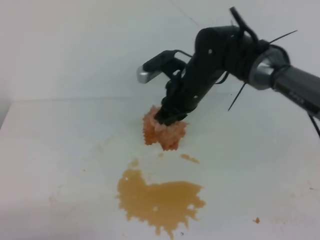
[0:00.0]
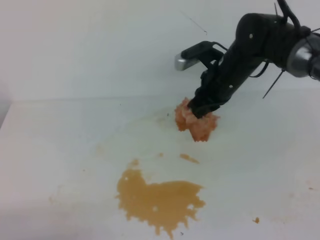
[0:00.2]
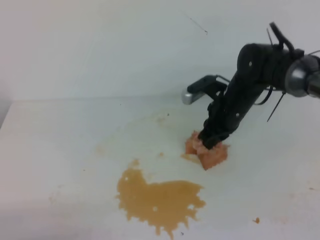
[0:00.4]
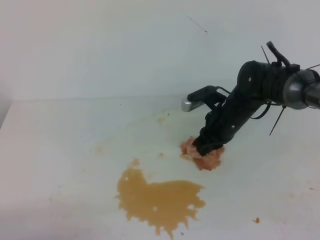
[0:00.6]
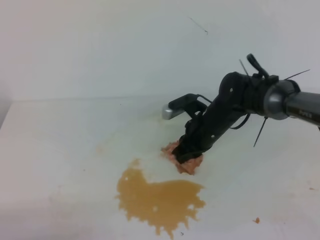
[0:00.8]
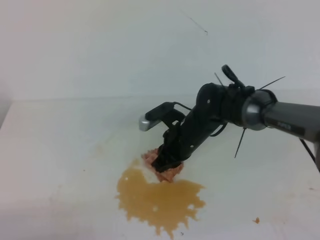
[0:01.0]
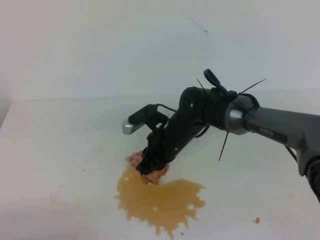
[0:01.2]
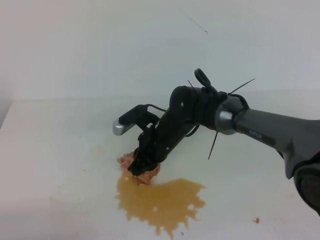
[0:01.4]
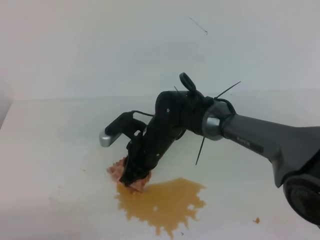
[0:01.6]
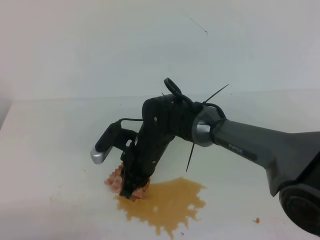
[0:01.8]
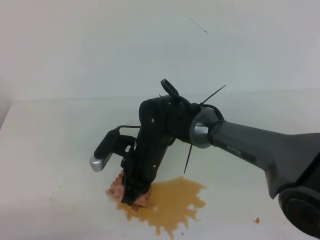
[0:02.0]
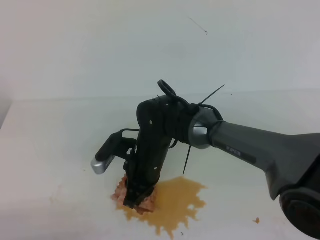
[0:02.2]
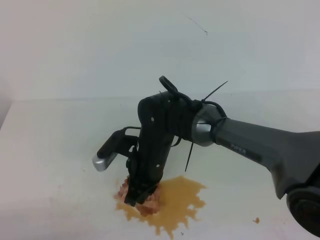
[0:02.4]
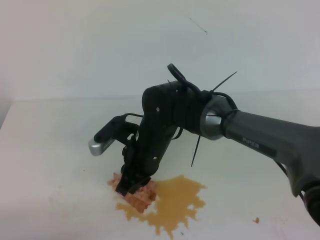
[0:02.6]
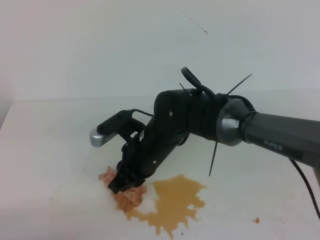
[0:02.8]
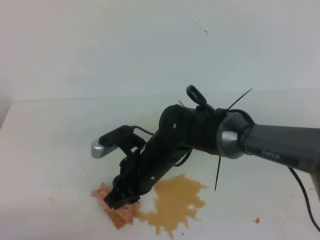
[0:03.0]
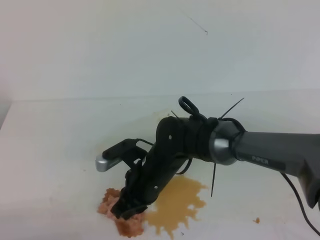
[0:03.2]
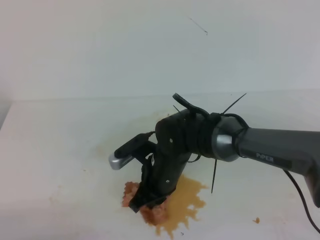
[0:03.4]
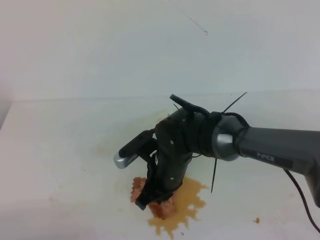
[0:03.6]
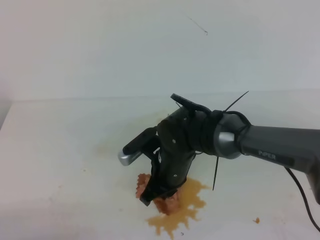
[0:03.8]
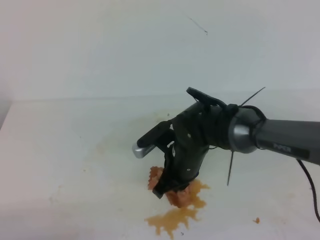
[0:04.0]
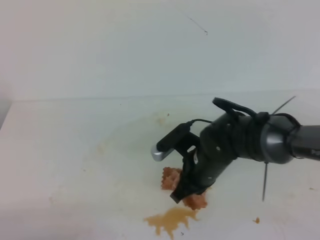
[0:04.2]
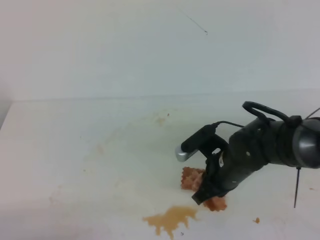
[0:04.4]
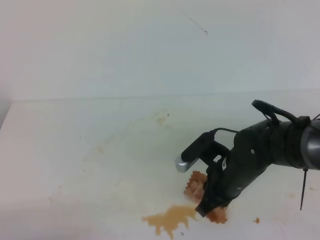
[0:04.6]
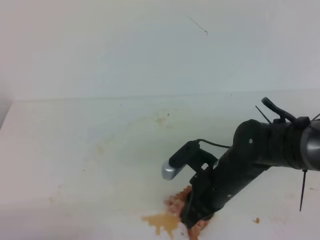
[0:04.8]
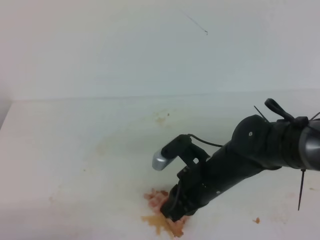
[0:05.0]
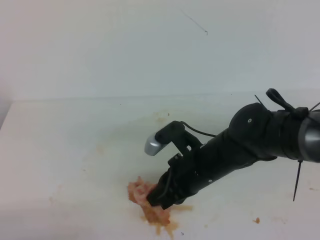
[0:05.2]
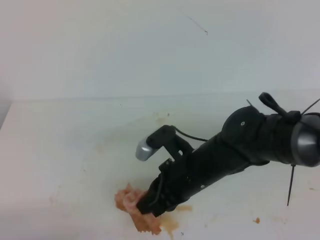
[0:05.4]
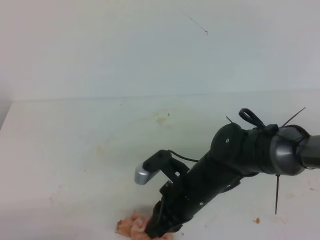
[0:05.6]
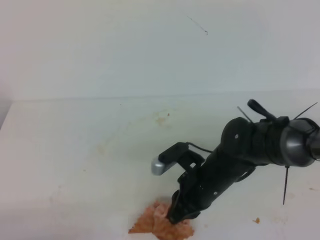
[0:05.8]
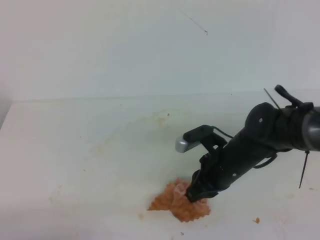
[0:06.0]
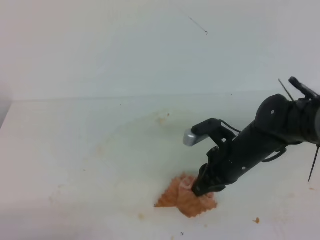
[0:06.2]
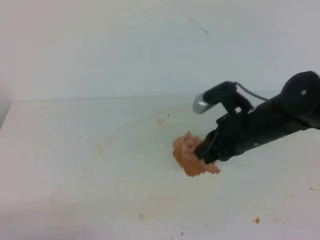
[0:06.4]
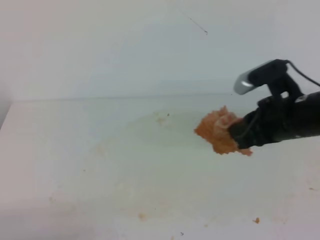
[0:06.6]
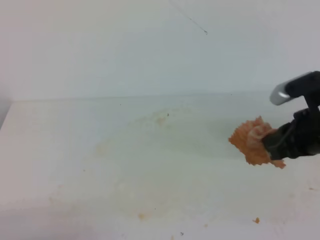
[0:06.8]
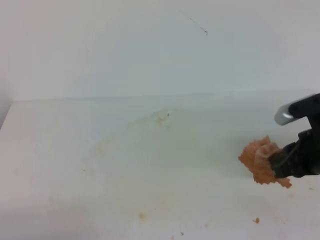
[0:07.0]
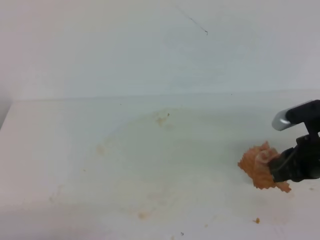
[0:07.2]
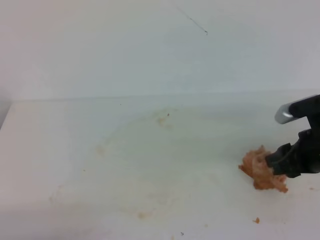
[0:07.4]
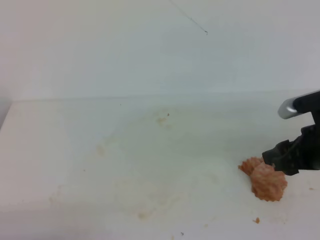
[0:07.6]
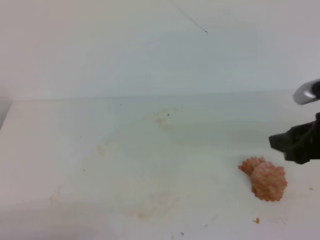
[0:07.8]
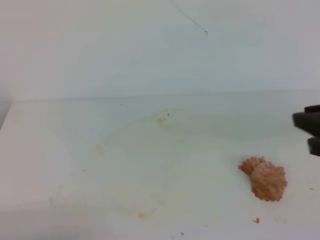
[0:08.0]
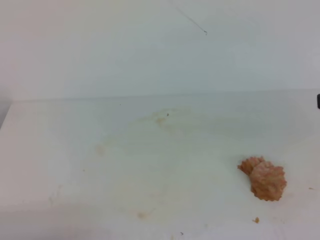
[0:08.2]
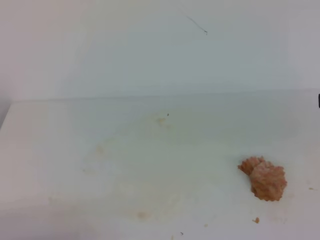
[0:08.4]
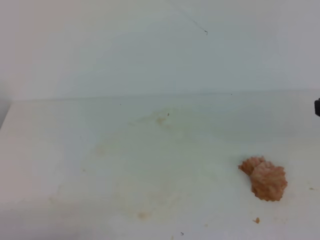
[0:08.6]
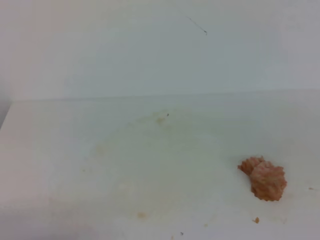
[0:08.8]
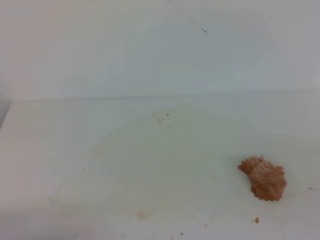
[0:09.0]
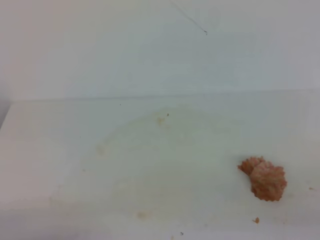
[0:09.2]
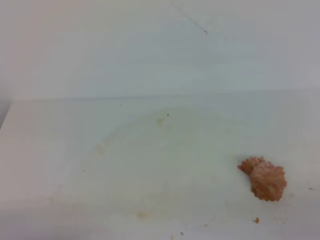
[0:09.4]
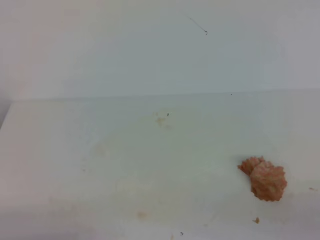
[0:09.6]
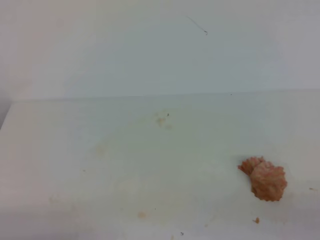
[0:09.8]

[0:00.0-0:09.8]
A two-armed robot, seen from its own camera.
0:00.0 to 0:01.4: The right gripper goes about 10 cm downward and to the left.
0:01.4 to 0:02.8: The right gripper shifts roughly 10 cm backward and upward.
0:02.8 to 0:04.2: The right gripper goes about 10 cm to the right.
0:05.6 to 0:07.0: The right gripper moves to the right, approximately 20 cm.
0:07.0 to 0:08.4: The right gripper is displaced upward and backward by about 15 cm, and opens, then closes once more.
0:08.4 to 0:09.8: The right gripper is displaced downward and backward by roughly 20 cm.

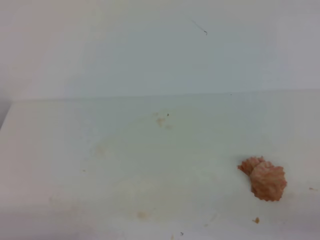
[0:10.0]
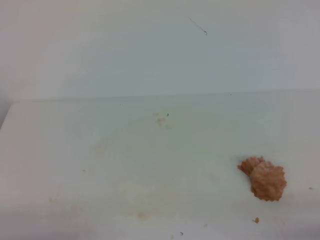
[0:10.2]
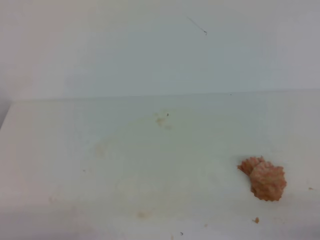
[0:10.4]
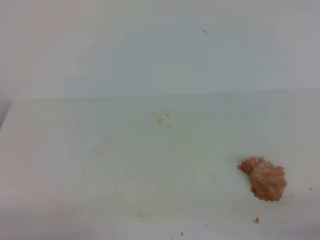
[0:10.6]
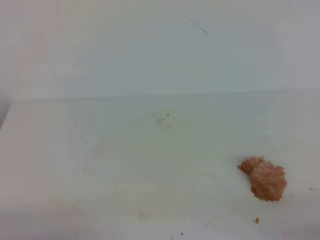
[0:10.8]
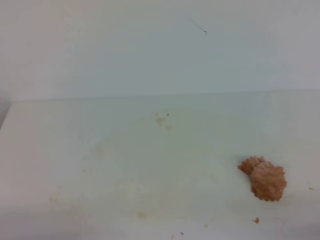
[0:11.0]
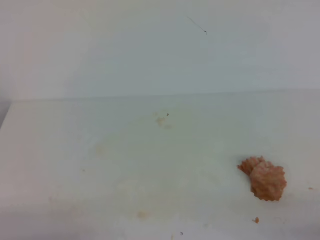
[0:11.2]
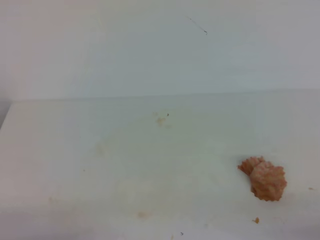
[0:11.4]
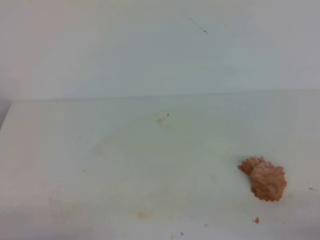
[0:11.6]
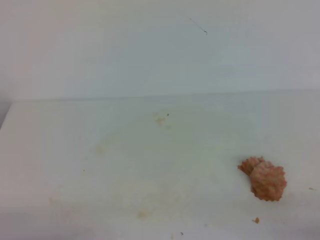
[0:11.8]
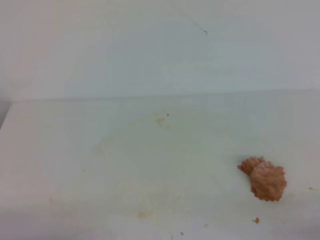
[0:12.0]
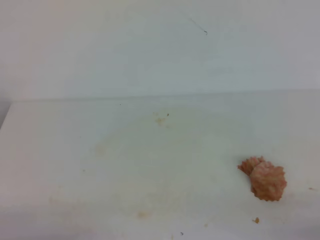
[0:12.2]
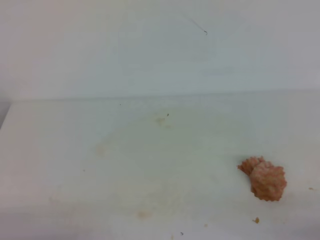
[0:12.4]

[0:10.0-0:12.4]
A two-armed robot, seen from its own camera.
0:11.2 to 0:12.4: Both grippers stay put.
